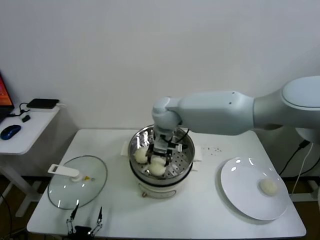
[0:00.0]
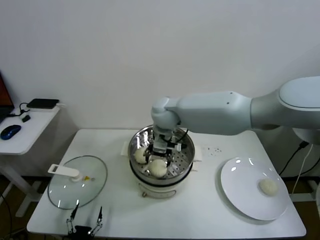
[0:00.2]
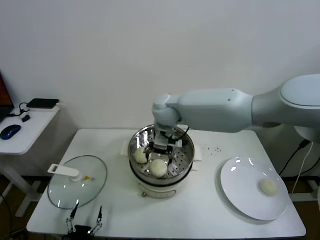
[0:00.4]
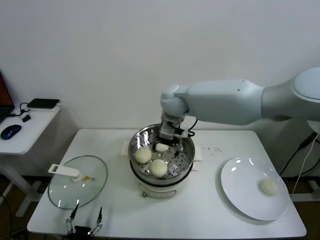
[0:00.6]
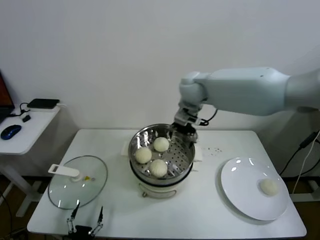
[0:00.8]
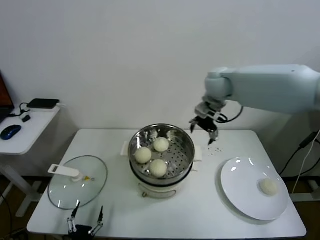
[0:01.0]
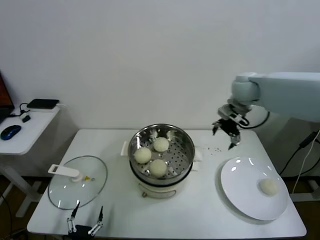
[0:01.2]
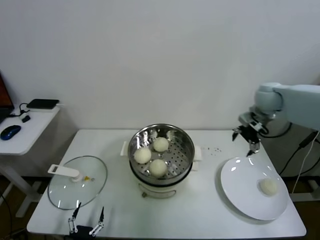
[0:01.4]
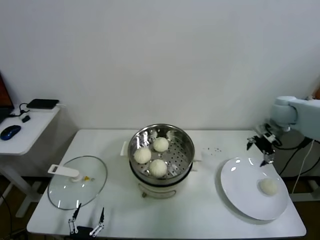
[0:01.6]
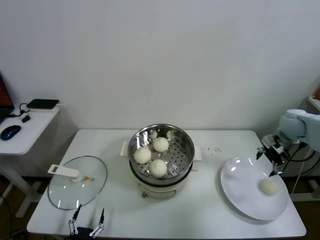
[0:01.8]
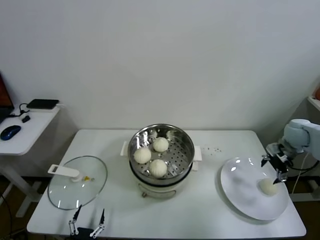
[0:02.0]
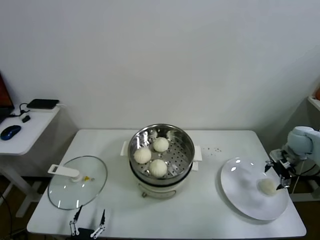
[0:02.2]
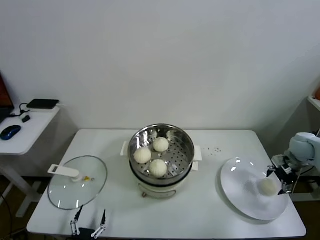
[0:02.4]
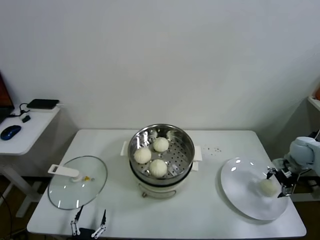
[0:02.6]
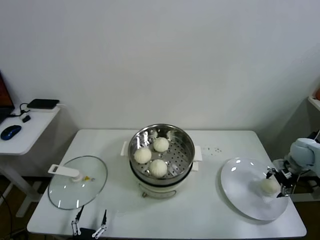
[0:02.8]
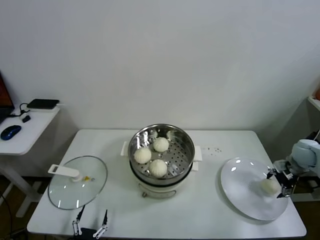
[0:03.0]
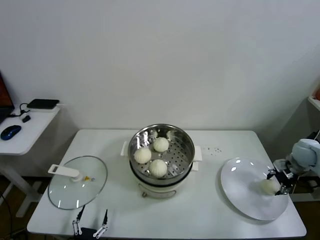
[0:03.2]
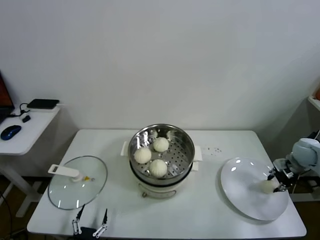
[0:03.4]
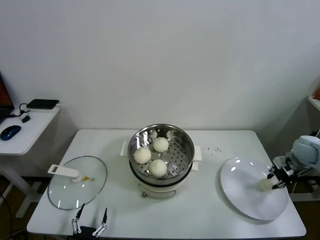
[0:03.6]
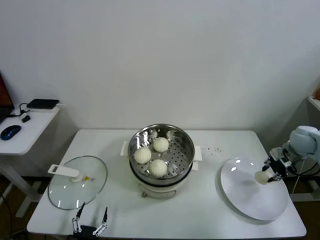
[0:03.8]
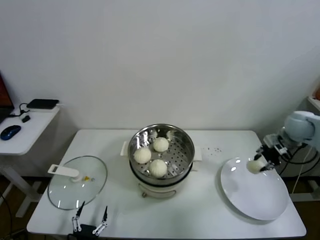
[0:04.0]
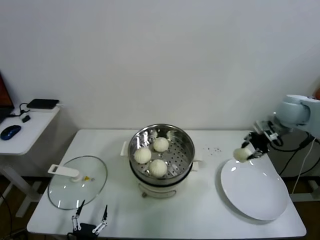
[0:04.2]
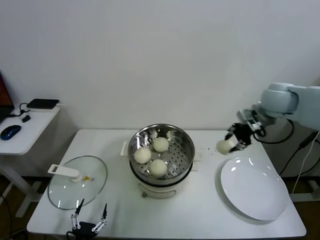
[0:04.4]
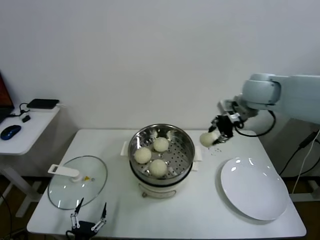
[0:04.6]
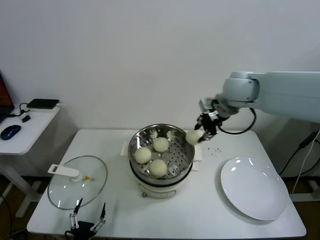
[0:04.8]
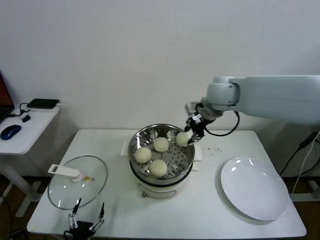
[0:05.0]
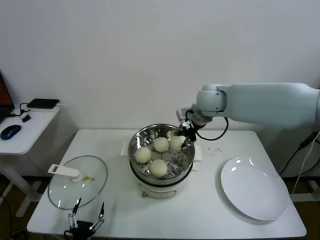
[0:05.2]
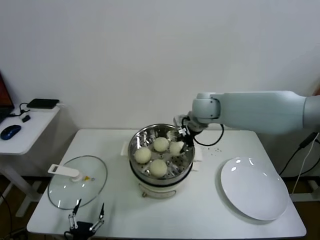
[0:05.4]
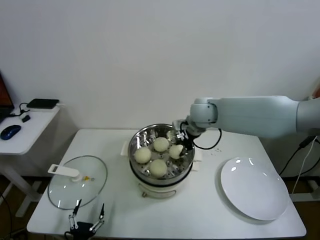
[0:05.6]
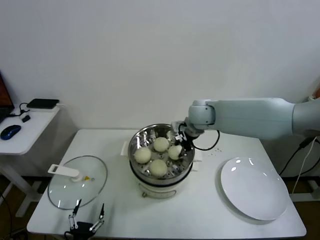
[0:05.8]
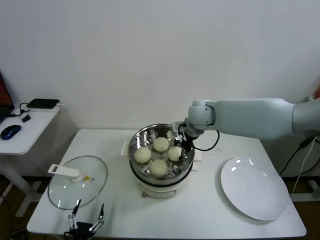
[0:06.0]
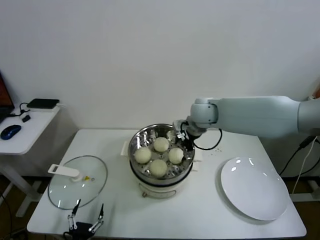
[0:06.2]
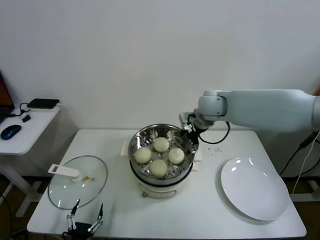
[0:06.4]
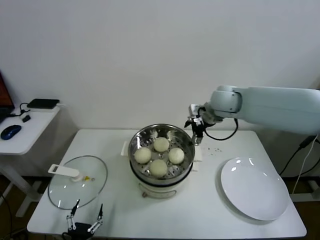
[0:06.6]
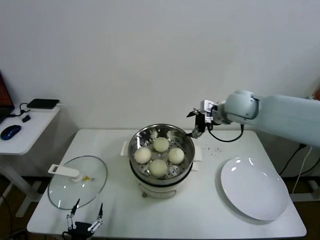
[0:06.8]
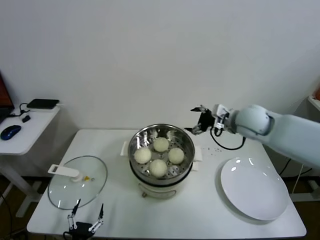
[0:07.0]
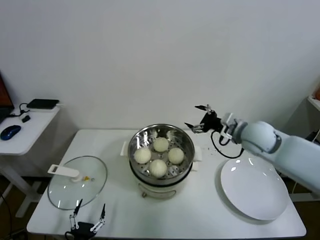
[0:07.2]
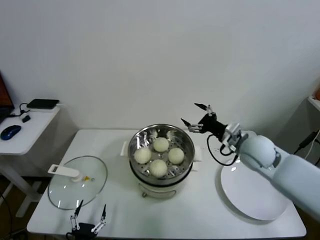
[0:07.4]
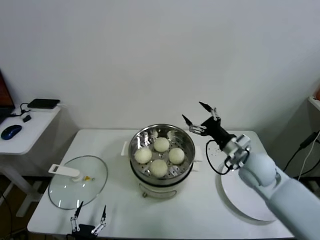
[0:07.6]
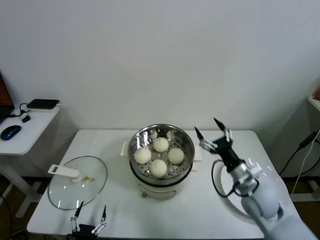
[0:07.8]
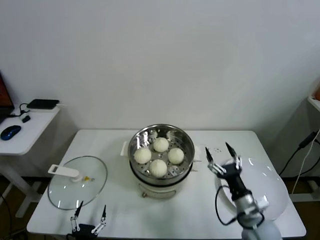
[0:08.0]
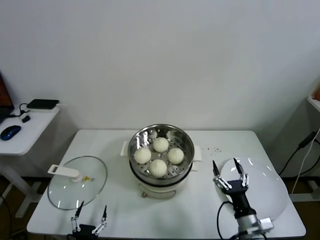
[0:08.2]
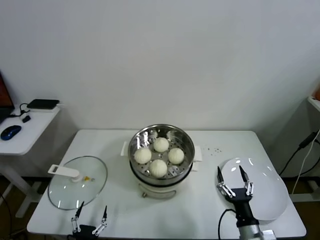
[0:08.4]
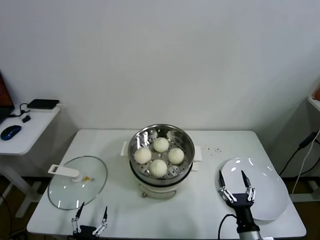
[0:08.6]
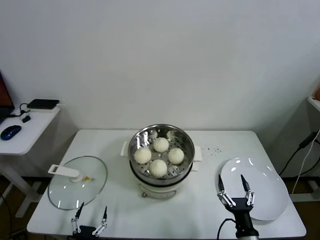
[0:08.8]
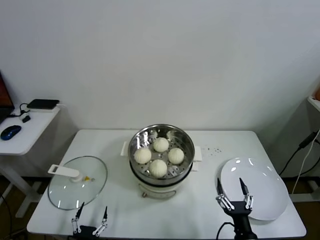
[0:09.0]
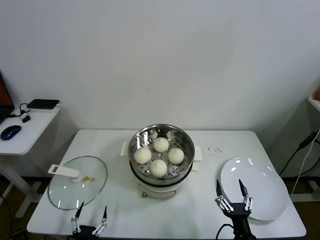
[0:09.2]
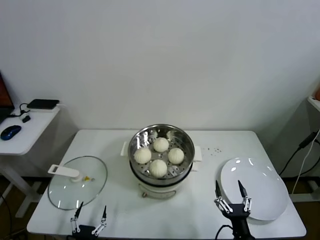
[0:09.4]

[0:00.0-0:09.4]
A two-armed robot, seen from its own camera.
Task of the whole recording: take steamed baozi put them in steamer.
Step, 0:00.6 to 0:03.2: Grasp the baozi in the plate with right gripper.
Step, 0:03.4 to 0:06.2: Place the baozi on the steamer with right gripper.
0:00.0 to 0:01.6: The right gripper travels to the right by some 40 cm, and opens.
0:01.6 to 0:03.2: The right gripper moves downward, to the right and backward, about 20 cm.
0:03.2 to 0:04.8: The right gripper moves to the left and upward, about 40 cm, and closes.
0:04.8 to 0:06.2: The right gripper shifts about 15 cm downward and to the left, and opens.
0:06.2 to 0:07.8: The right gripper goes approximately 30 cm backward, downward and to the right.
0:07.8 to 0:09.4: The right gripper goes roughly 25 cm backward and downward.

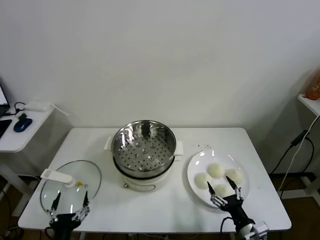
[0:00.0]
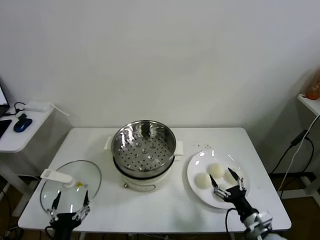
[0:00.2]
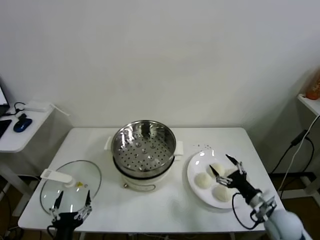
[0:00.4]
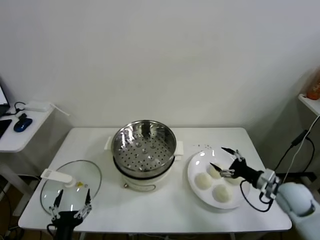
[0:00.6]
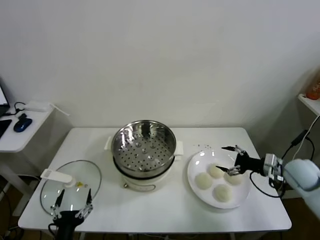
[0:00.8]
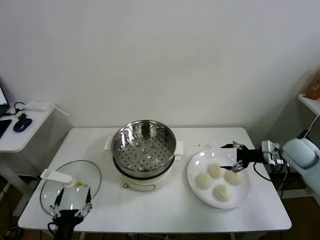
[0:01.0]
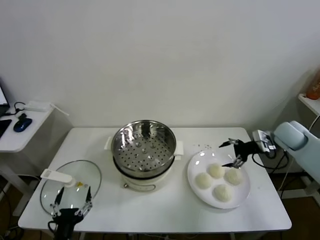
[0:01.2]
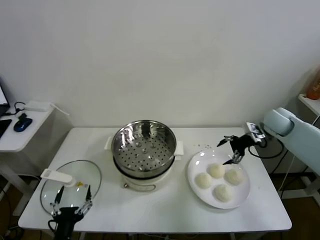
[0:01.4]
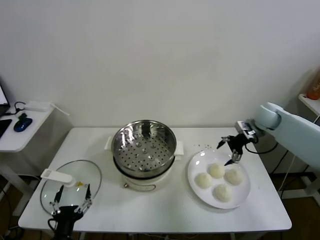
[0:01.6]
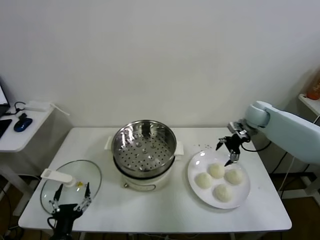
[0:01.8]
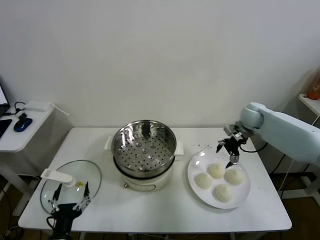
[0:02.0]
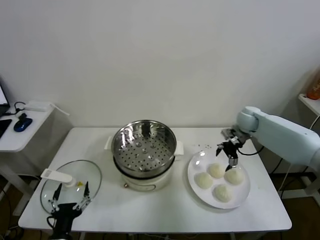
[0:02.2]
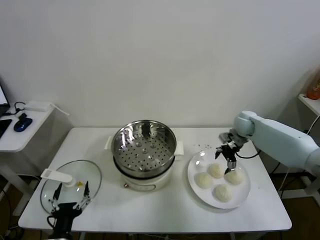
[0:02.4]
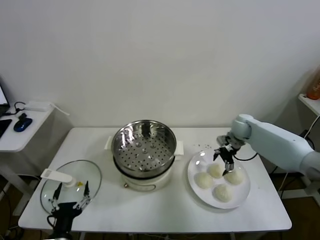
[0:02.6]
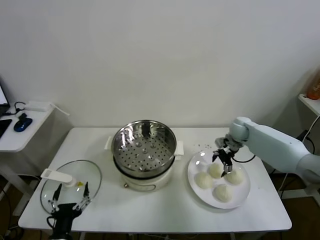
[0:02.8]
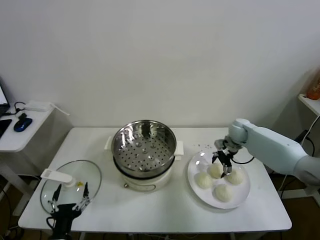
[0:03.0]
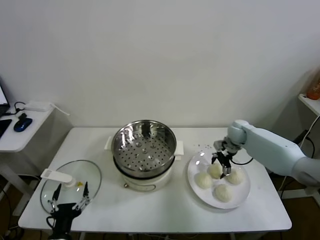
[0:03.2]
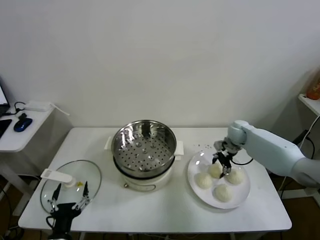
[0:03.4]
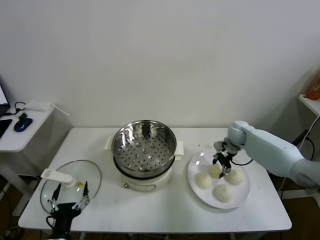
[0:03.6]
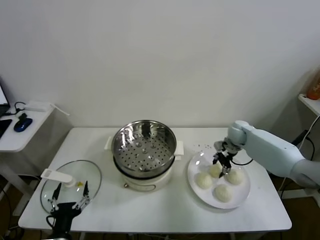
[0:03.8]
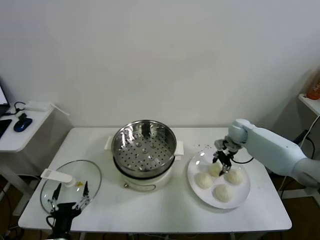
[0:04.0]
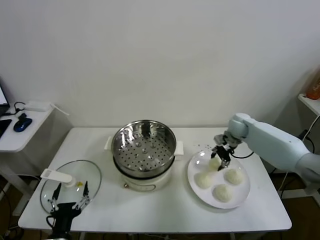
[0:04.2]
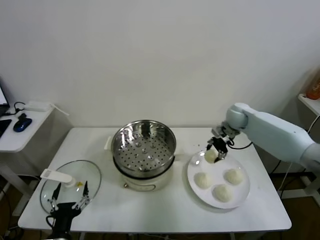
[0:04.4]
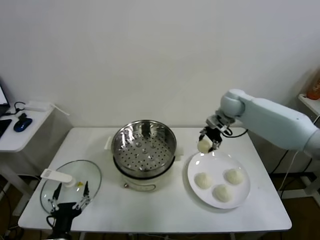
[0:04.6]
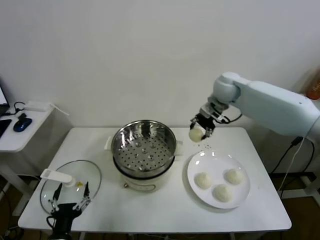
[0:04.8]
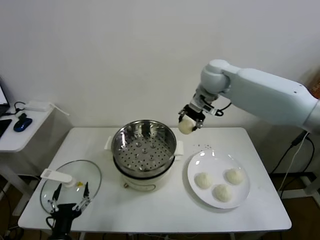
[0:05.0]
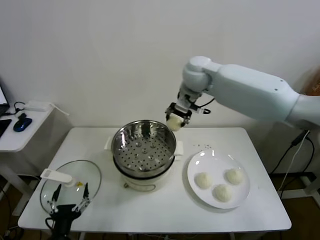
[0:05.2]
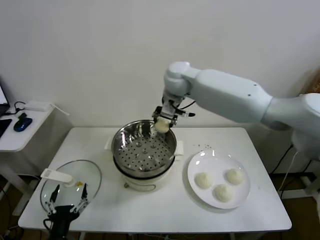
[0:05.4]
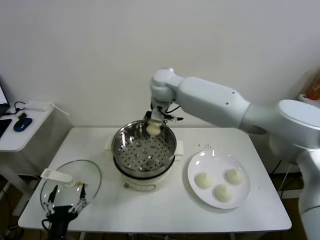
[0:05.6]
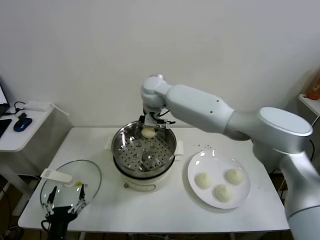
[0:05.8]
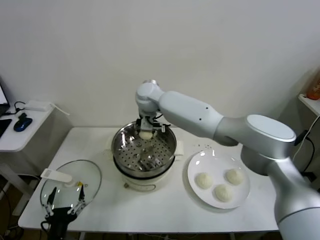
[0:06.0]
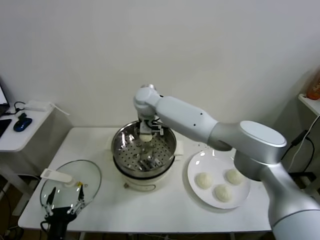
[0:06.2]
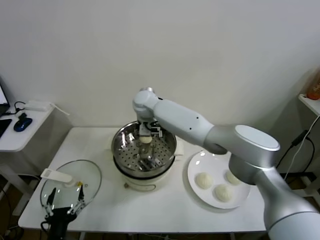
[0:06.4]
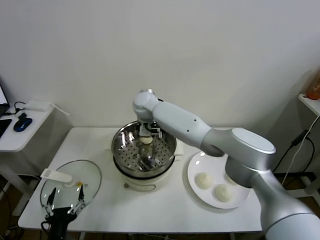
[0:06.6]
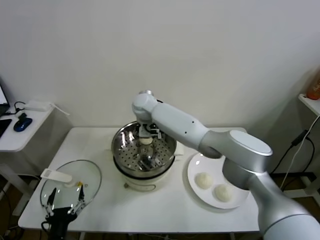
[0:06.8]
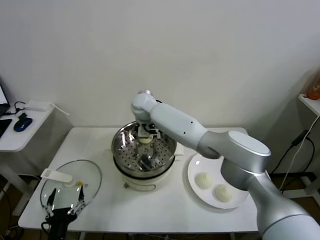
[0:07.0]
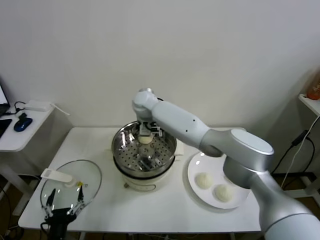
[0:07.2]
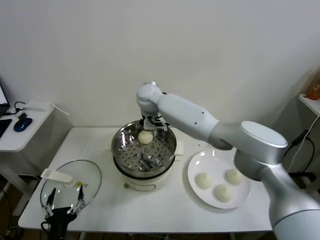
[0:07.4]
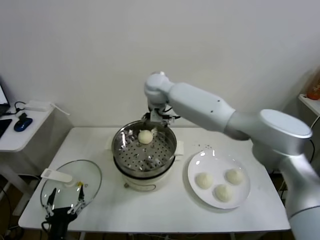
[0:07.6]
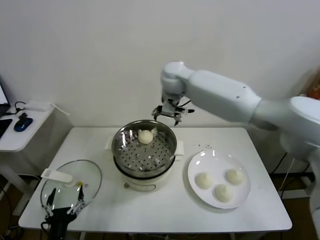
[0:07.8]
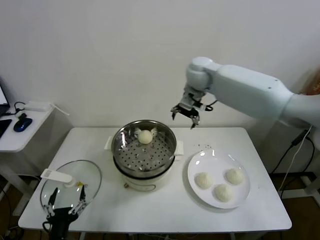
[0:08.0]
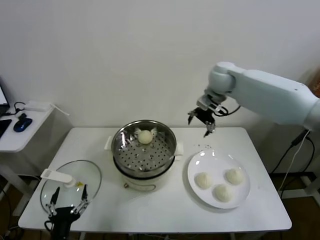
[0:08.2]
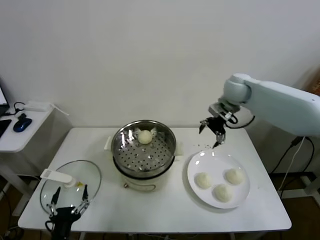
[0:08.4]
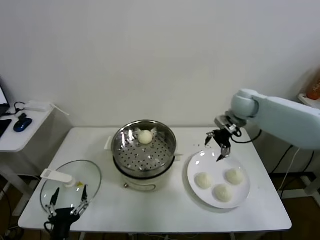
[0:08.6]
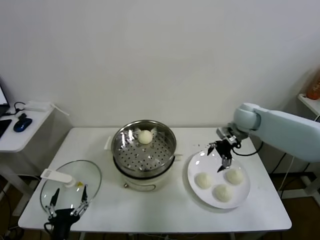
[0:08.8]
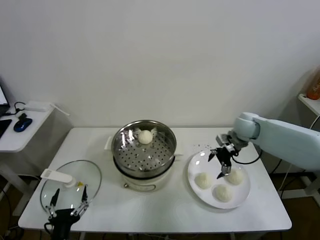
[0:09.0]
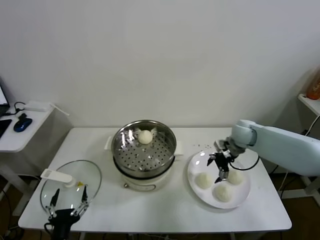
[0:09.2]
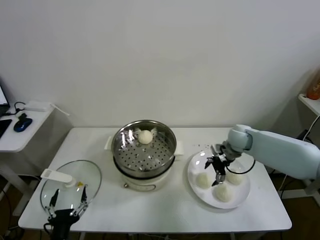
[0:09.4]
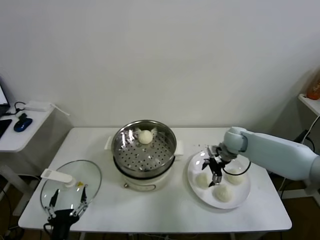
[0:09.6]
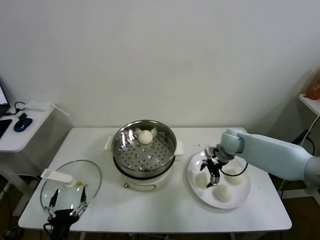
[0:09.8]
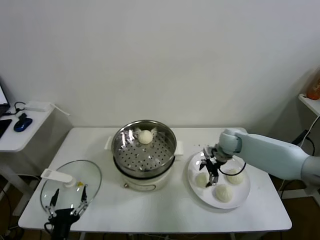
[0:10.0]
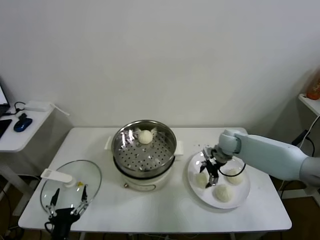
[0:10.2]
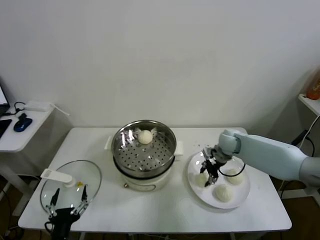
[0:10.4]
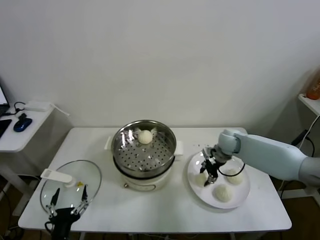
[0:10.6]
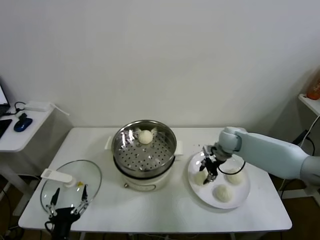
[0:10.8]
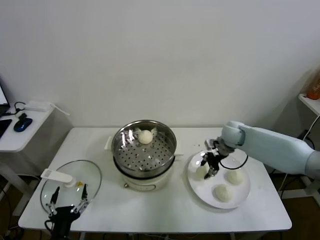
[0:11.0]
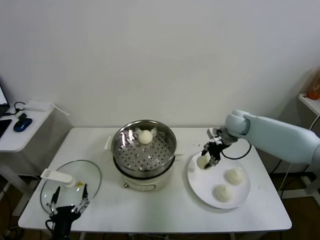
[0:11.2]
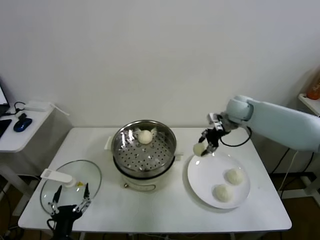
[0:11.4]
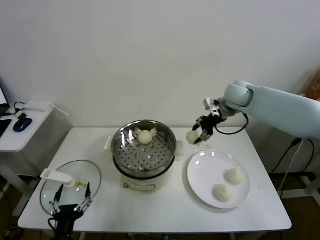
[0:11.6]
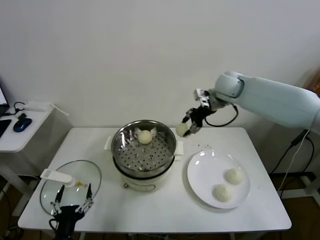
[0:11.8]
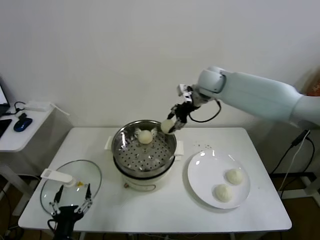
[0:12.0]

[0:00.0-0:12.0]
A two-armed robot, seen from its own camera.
Task of the whole recording: take steamed baozi put them in steamer.
Step, 0:00.0 to 0:03.8: Grasp the baozi in the plate with right gripper.
Step, 0:04.0 to 0:07.2: Place the baozi on the steamer with right gripper.
Step, 0:07.4 to 0:10.8: Grasp the baozi in the plate with right gripper.
0:01.6 to 0:03.0: The right gripper shifts about 10 cm downward and to the left.
0:03.0 to 0:04.4: The right gripper heads upward, covering roughly 10 cm, and closes up.
0:04.4 to 0:06.0: The right gripper travels to the left by roughly 35 cm.
0:06.0 to 0:07.6: The right gripper is displaced to the right and upward by some 10 cm, and opens up.
0:07.6 to 0:09.0: The right gripper is displaced to the right and downward by approximately 35 cm.
0:09.0 to 0:10.4: The right gripper goes about 5 cm downward, and closes.
0:10.4 to 0:12.0: The right gripper heads upward and to the left, covering approximately 25 cm.
